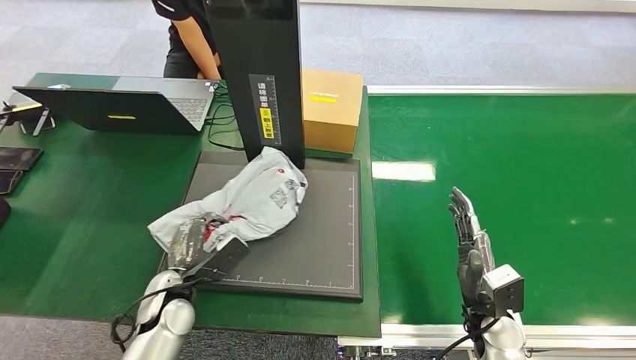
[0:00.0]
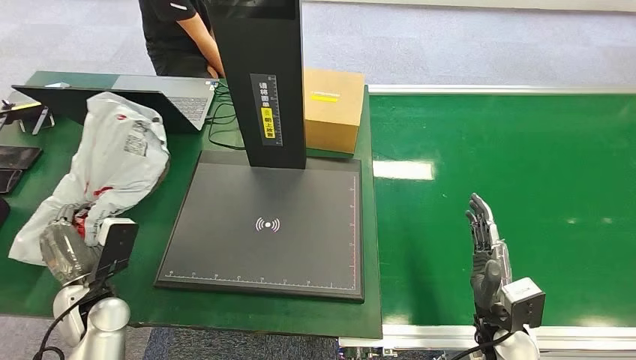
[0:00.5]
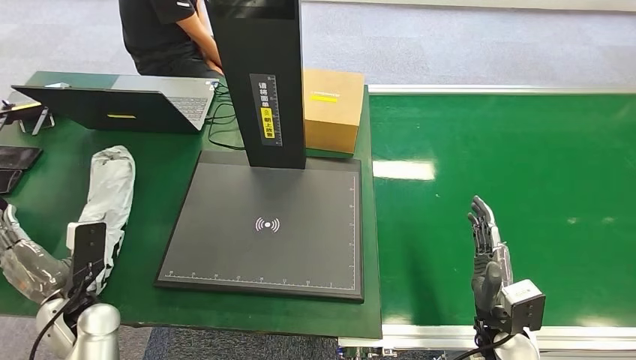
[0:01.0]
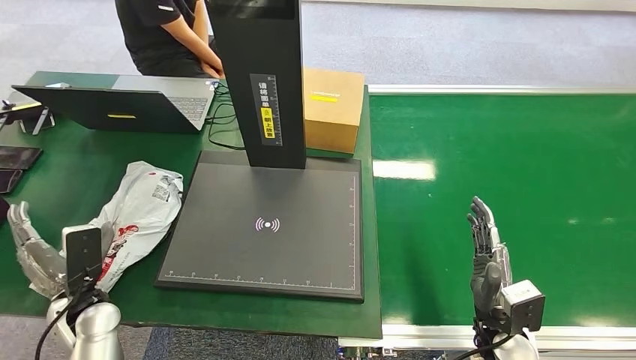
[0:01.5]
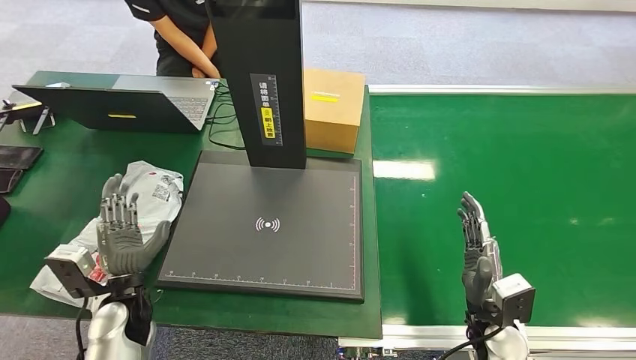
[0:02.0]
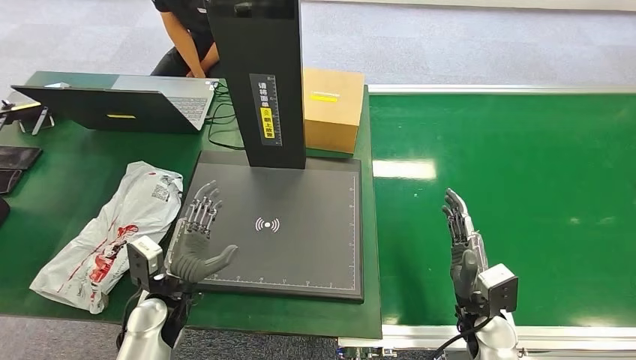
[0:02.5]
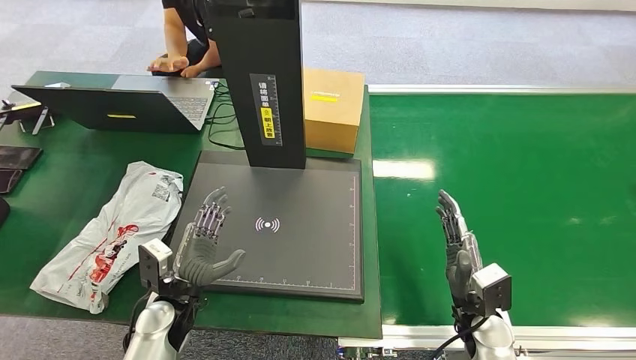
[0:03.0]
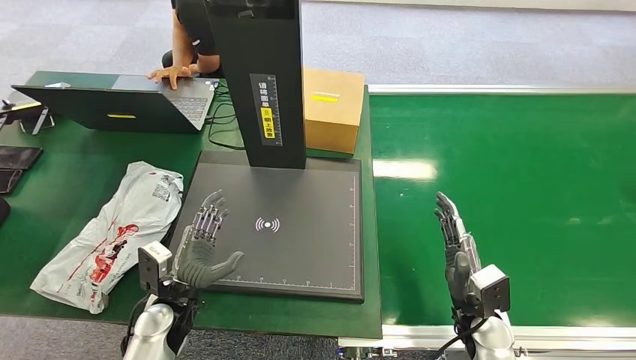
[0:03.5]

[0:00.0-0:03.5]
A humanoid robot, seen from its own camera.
Step, 0:01.0 to 0:03.5: Place the package into the parcel locker.
0:00.0 to 0:02.0: The left hand is displaced to the left by about 5 cm.
0:02.0 to 0:03.5: The left hand goes approximately 5 cm to the right.
